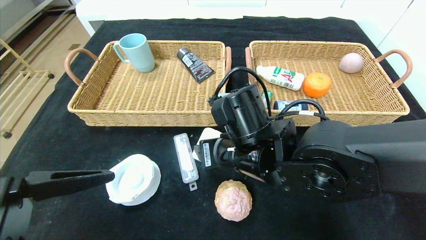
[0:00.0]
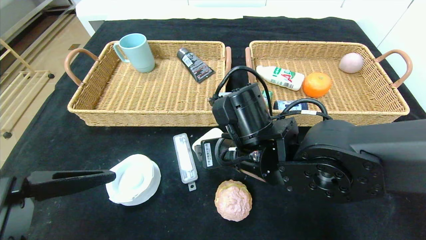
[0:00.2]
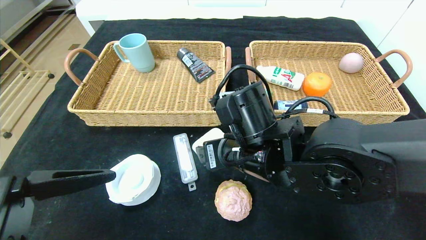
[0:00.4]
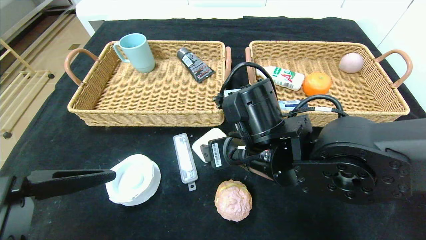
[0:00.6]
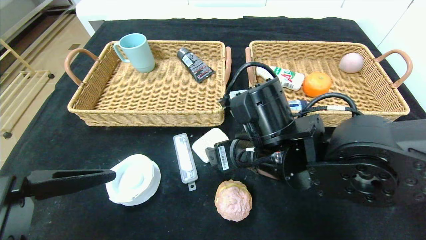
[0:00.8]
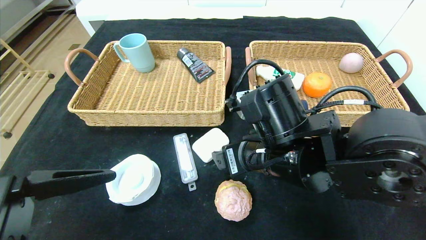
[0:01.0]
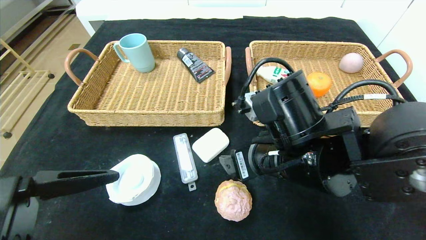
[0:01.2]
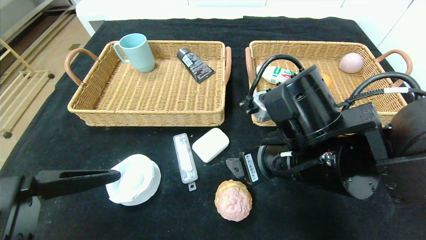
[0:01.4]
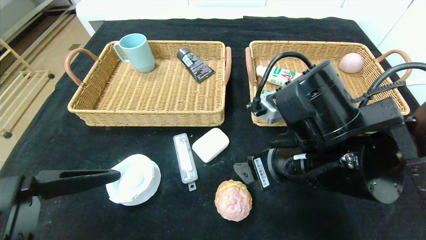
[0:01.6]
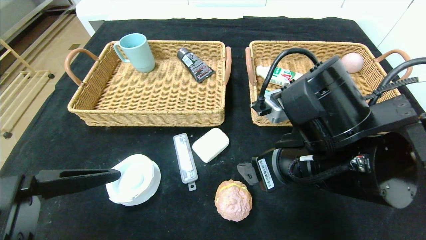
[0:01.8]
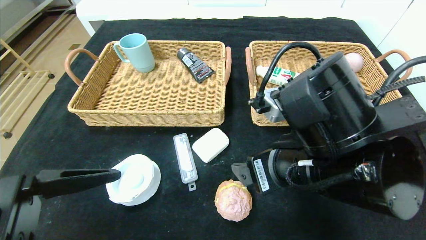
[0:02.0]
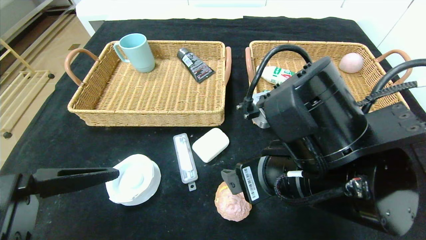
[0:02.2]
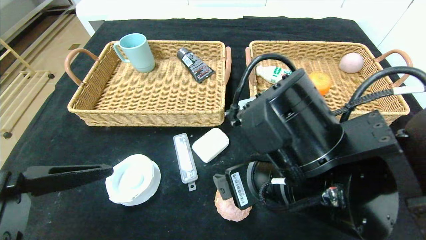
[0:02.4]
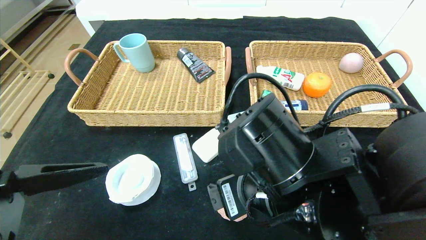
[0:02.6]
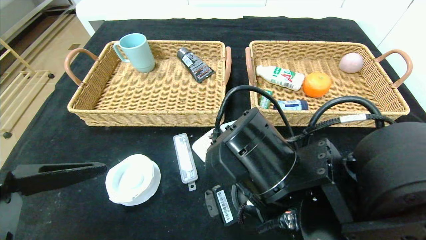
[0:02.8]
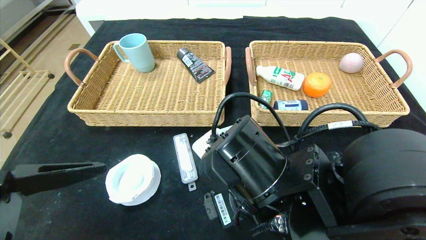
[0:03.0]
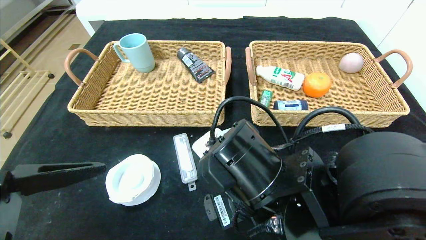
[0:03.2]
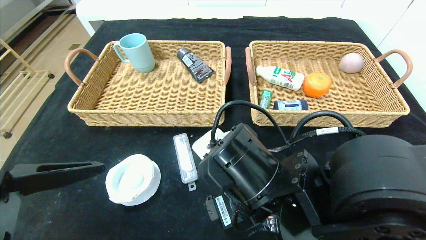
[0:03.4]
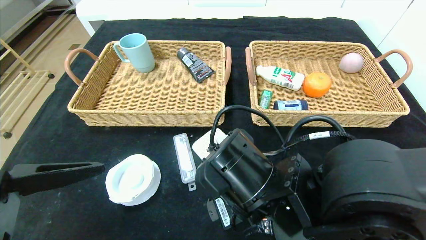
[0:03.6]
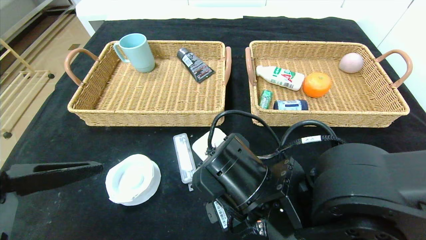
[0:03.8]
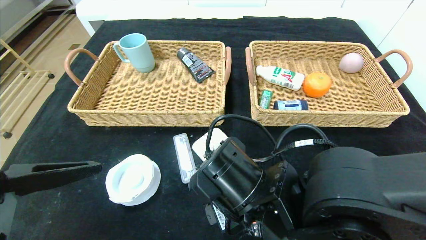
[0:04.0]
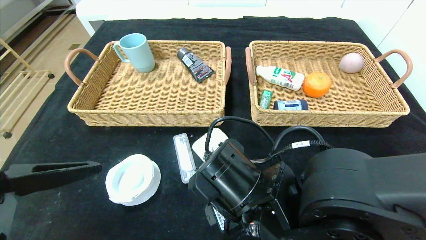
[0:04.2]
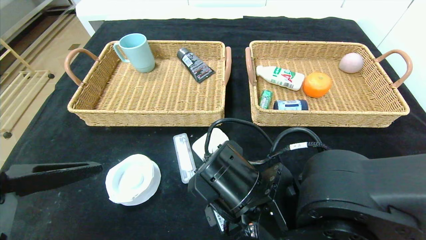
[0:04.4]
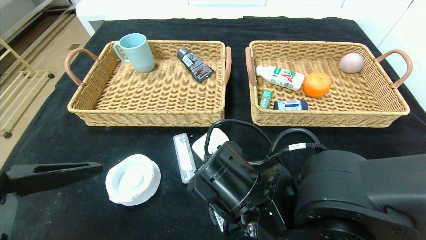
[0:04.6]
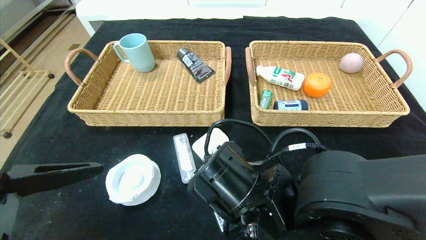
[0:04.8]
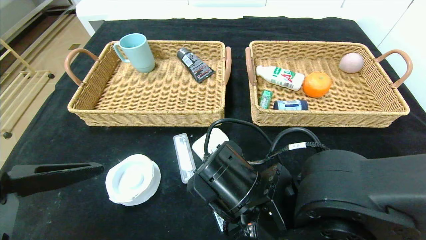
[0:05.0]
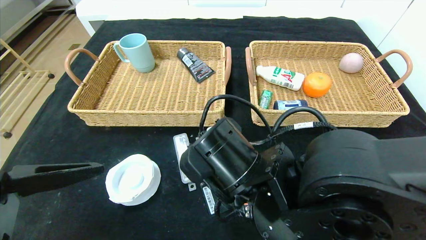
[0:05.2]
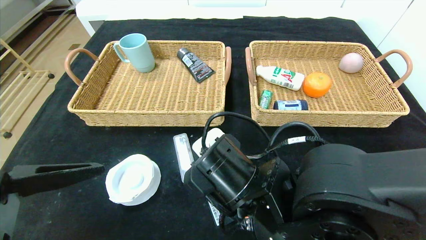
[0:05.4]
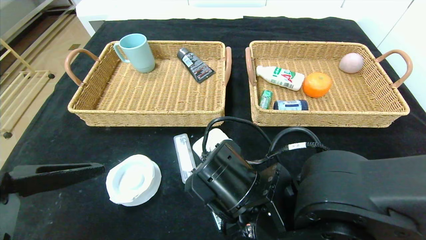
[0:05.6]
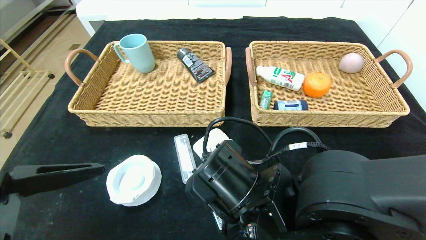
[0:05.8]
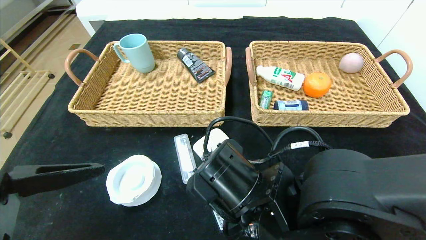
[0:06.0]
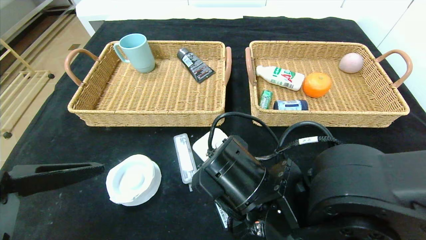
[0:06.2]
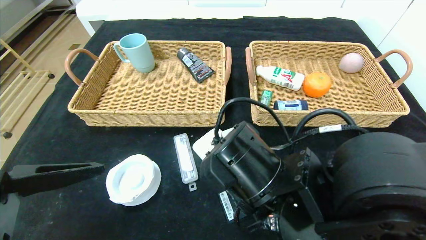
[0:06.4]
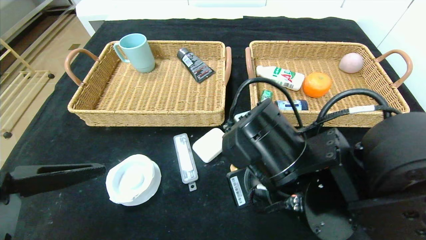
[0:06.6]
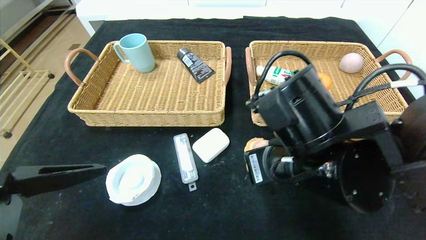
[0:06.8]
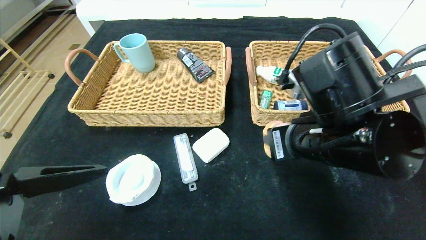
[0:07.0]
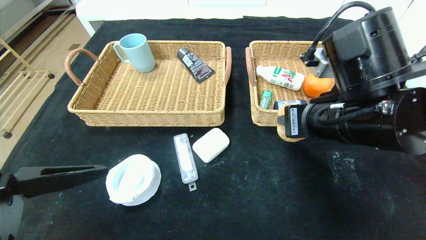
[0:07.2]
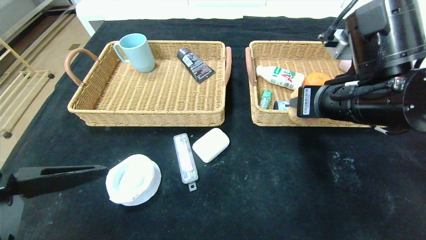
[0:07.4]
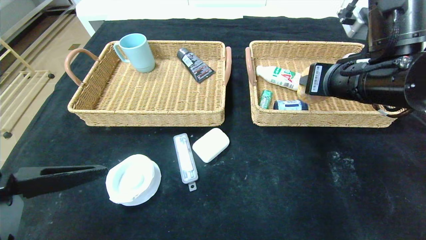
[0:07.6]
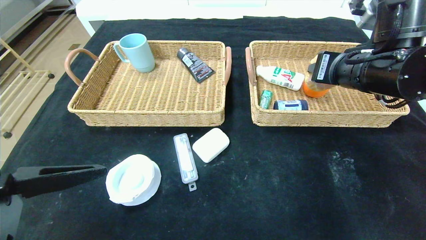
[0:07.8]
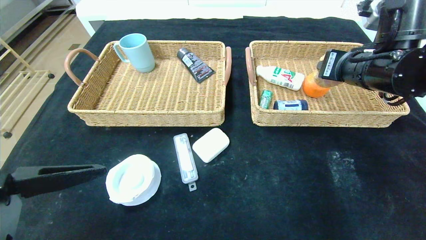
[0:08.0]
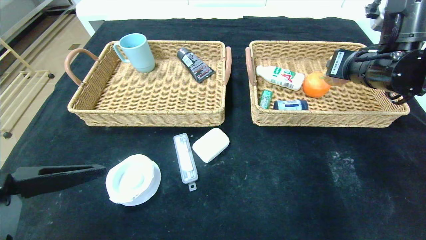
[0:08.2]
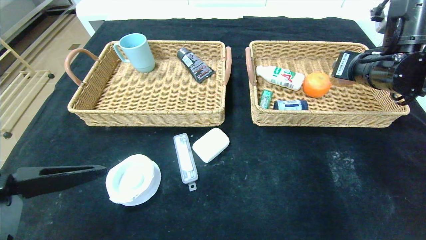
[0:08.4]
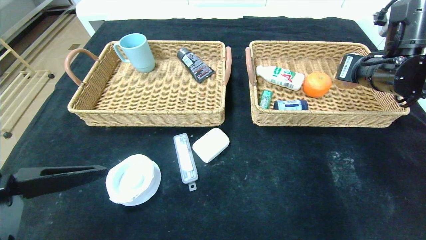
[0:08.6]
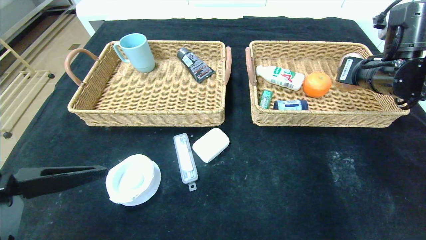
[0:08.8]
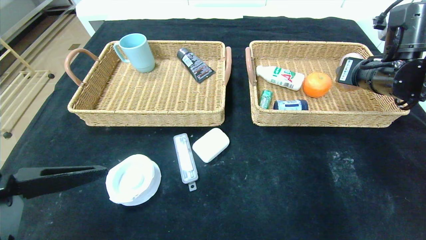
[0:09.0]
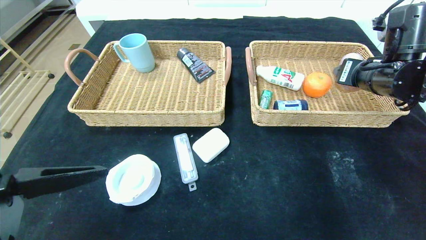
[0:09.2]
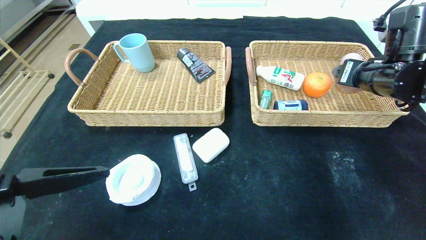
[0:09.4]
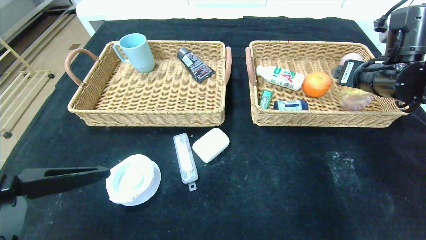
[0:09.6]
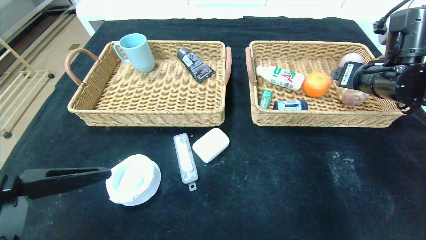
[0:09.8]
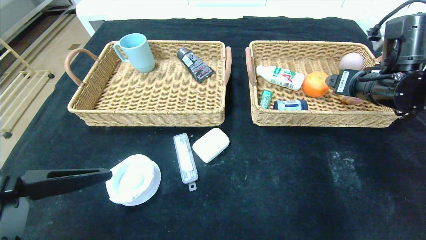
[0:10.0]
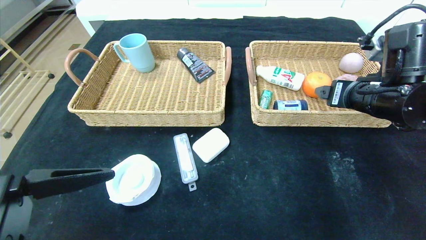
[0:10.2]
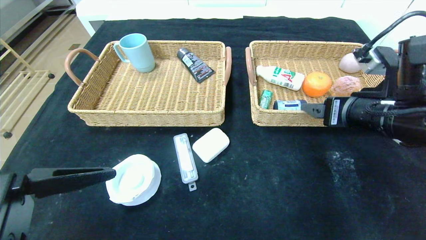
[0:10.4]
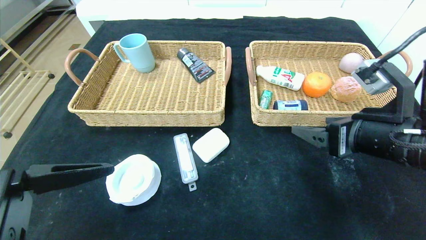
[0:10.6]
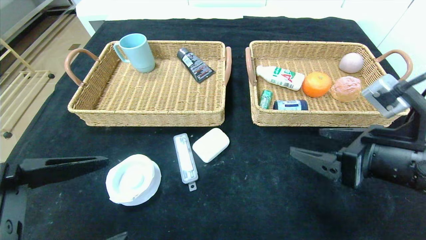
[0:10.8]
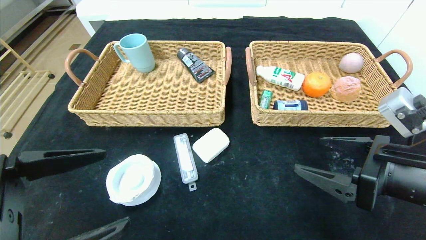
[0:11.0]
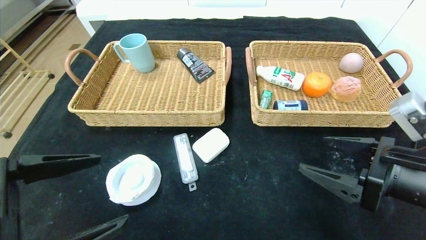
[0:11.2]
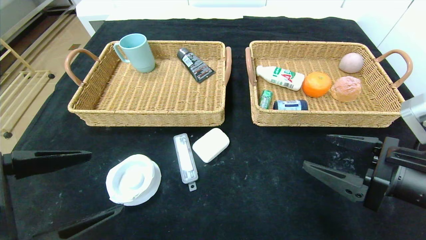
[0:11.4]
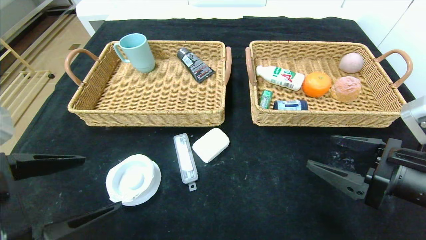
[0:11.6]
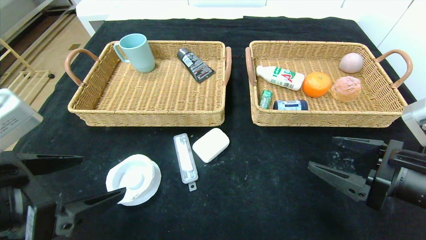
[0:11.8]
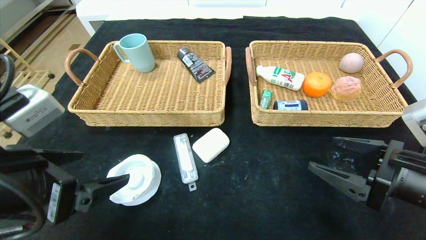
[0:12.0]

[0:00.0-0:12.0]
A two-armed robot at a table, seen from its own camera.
Step, 0:00.4 to 0:10.0: Grasp the round bread and put it in the right basket.
0:00.0 to 0:01.6: The right gripper is displaced to the right and backward by roughly 10 cm.
0:01.6 to 0:03.0: The right gripper heads to the left, covering roughly 5 cm.
0:03.0 to 0:04.4: There are only small adjustments of the grippers.
0:04.4 to 0:06.0: The right gripper closes its fingers.
0:06.0 to 0:07.6: The right gripper shifts approximately 25 cm to the right, upward and forward.
0:07.6 to 0:09.0: The right gripper goes approximately 10 cm to the right and forward.
0:09.0 to 0:10.4: The right gripper goes roughly 10 cm backward, and opens its fingers.
0:10.4 to 0:12.0: The right gripper heads backward and downward, covering roughly 10 cm. The left gripper travels forward by about 5 cm.

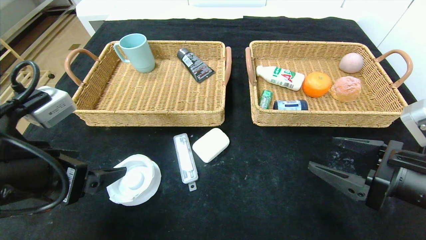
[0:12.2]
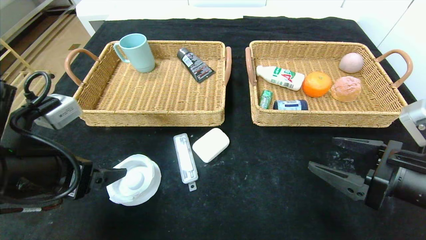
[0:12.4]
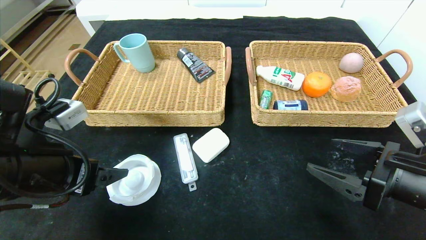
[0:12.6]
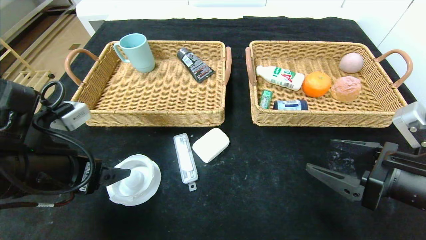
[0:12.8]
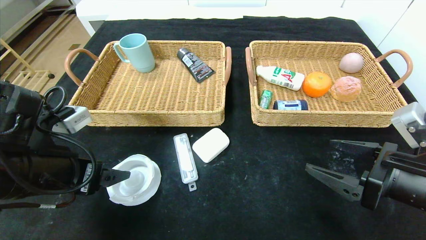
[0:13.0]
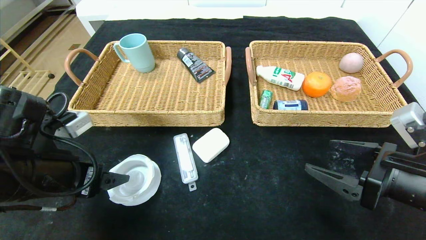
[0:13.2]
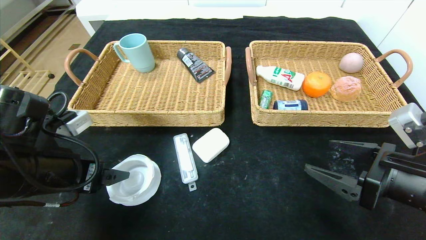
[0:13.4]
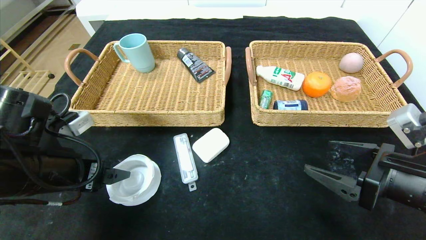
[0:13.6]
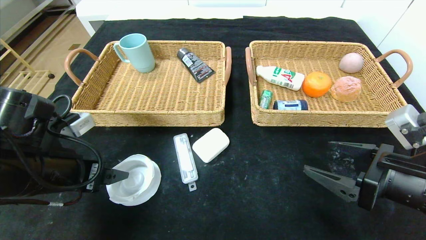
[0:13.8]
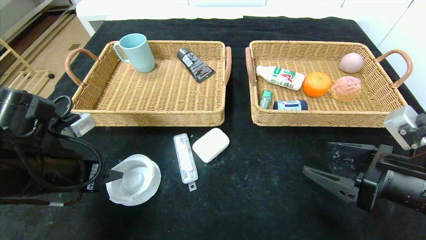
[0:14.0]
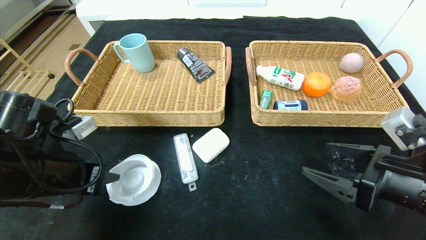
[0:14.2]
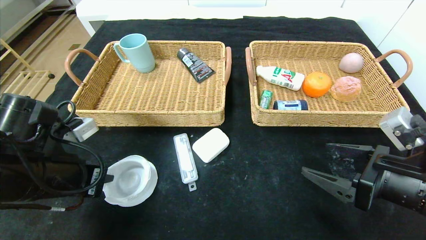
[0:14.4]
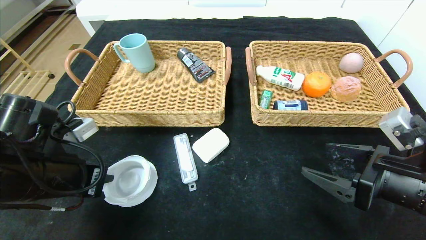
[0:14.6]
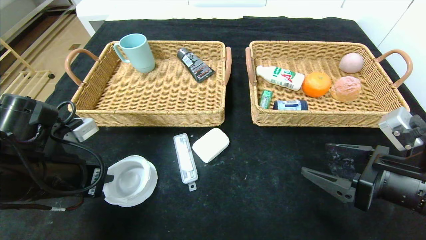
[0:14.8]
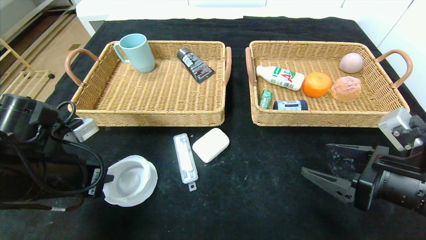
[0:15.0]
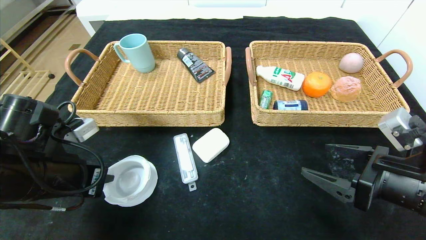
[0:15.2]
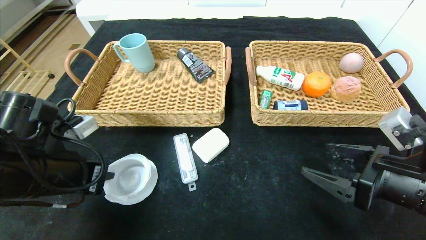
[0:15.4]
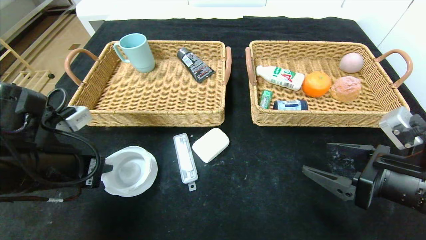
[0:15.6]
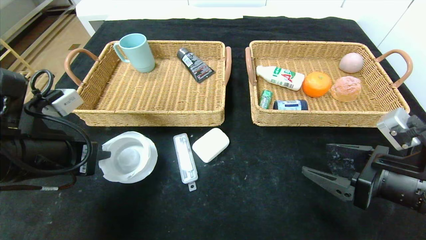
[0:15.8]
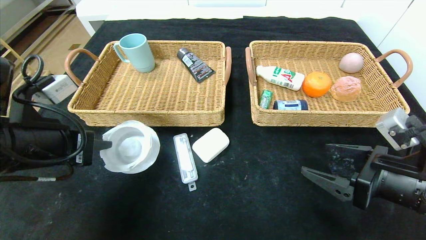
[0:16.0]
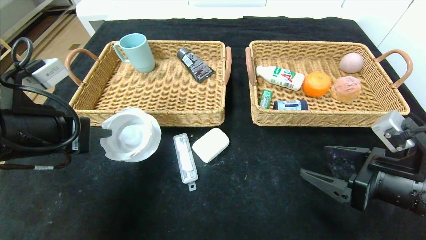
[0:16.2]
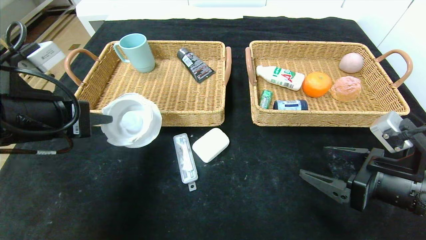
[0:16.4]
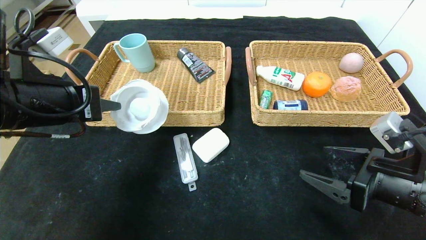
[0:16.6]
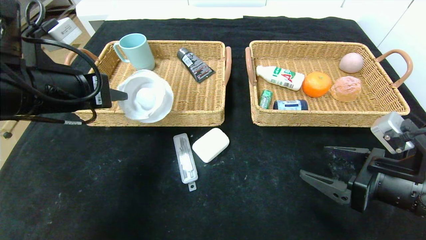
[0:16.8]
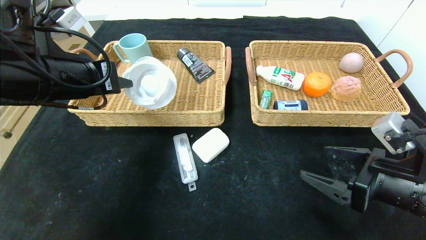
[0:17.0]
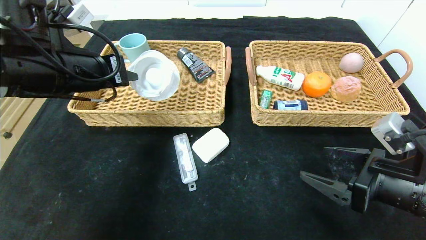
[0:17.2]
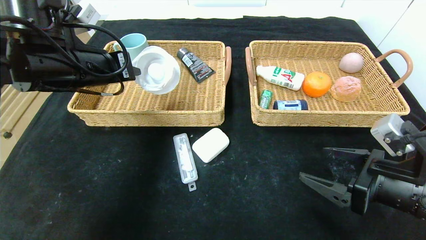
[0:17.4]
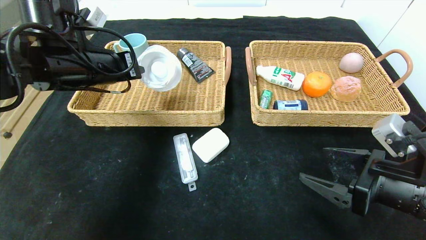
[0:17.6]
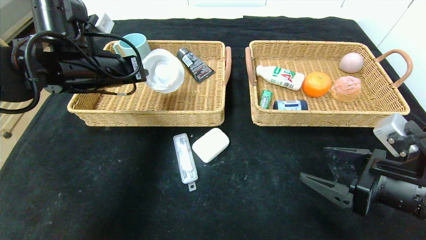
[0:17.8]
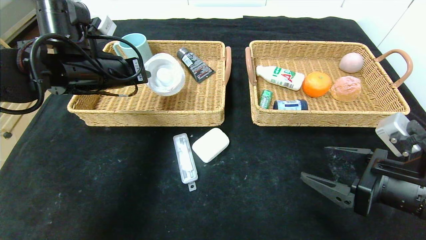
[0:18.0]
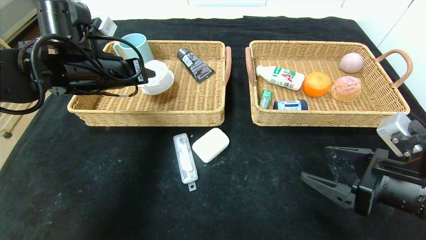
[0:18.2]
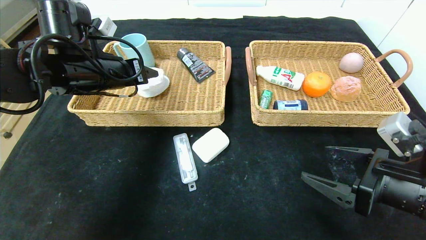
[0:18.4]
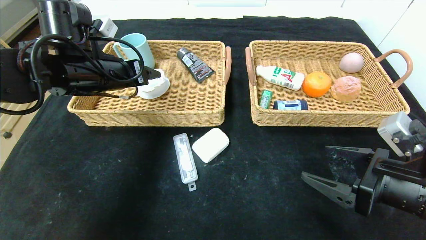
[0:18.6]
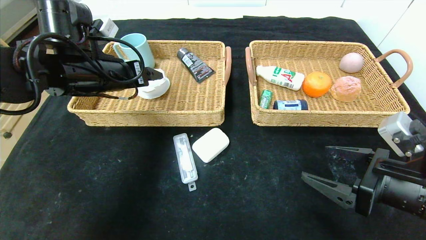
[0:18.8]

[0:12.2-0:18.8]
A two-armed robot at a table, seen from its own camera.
Step, 0:12.2 to 0:18.6: Grasp the tape and put it in the left basket.
0:12.2 to 0:13.8: The left gripper goes about 5 cm forward.
0:13.8 to 0:15.4: The left gripper closes.
0:15.4 to 0:17.2: The left gripper heads upward and forward, covering roughly 15 cm.
0:17.2 to 0:18.8: The left gripper shifts by roughly 5 cm, and opens its fingers.
